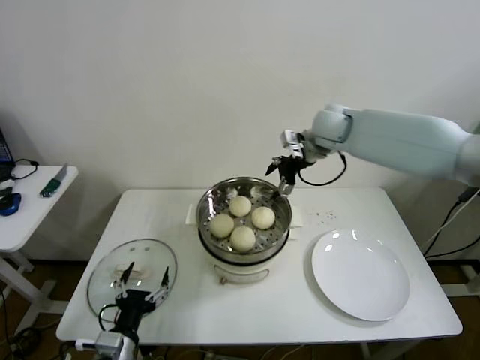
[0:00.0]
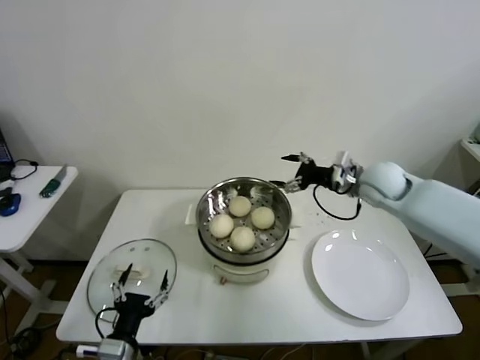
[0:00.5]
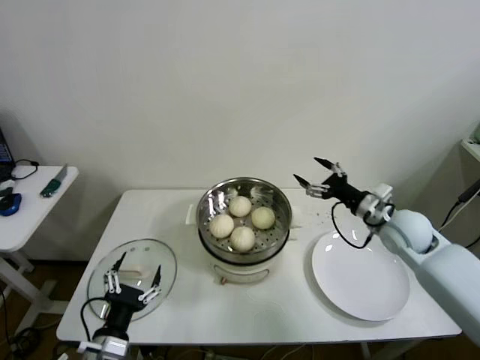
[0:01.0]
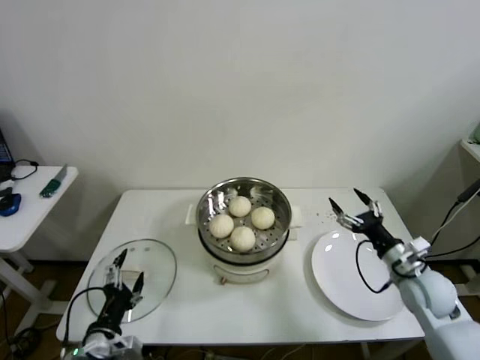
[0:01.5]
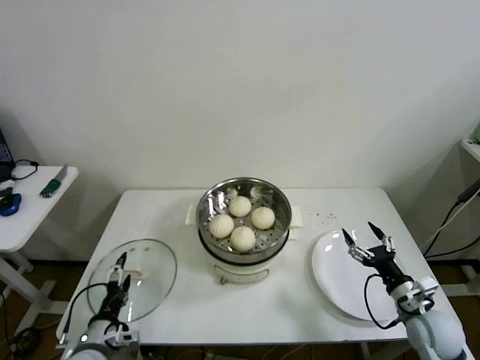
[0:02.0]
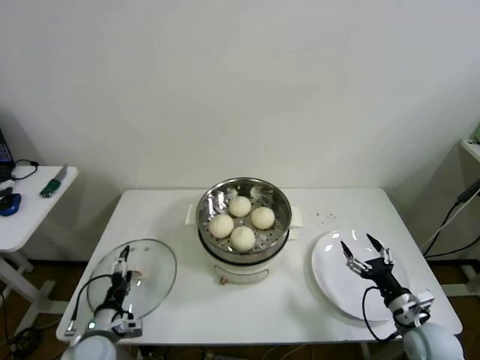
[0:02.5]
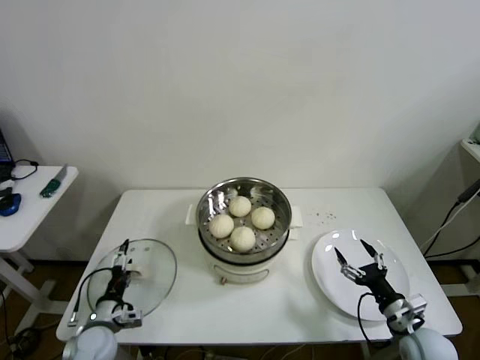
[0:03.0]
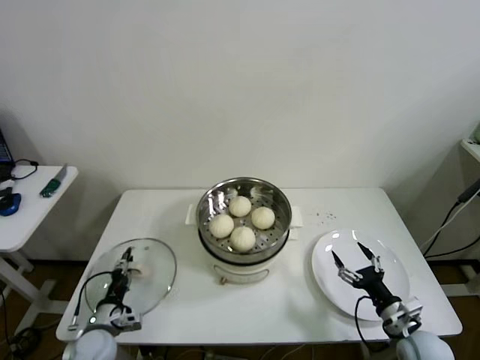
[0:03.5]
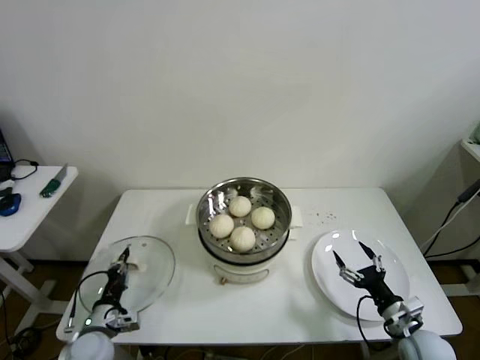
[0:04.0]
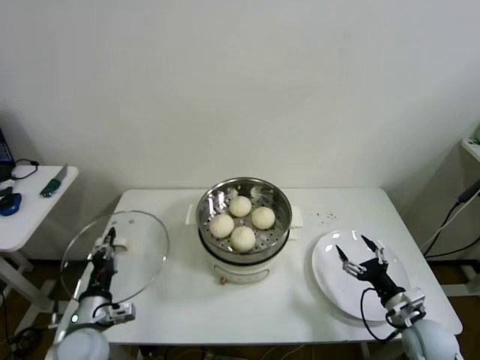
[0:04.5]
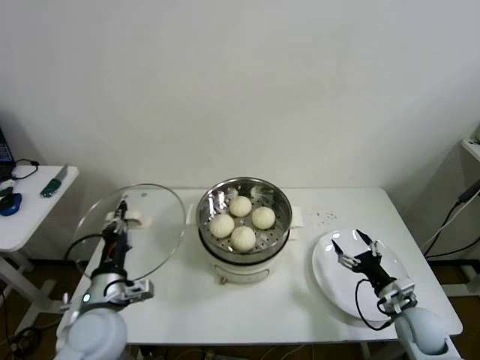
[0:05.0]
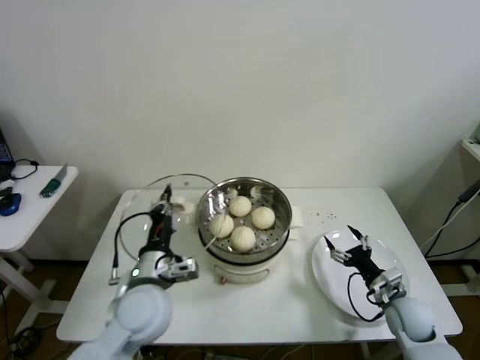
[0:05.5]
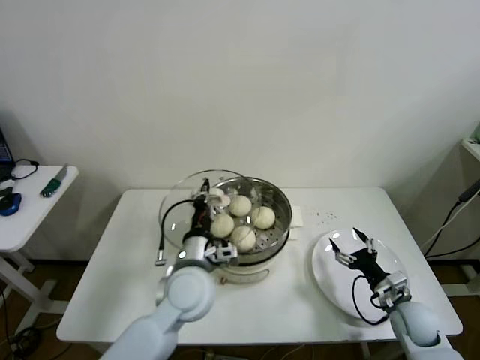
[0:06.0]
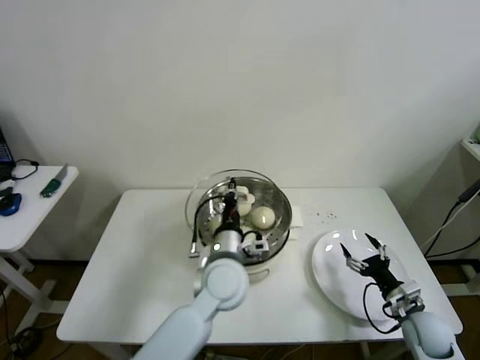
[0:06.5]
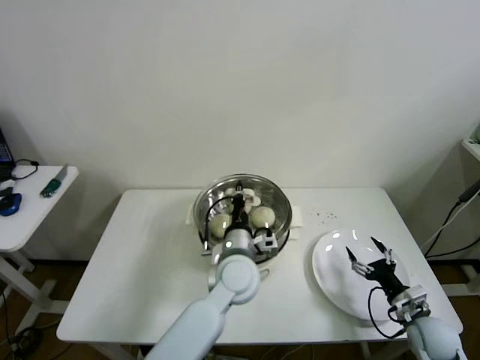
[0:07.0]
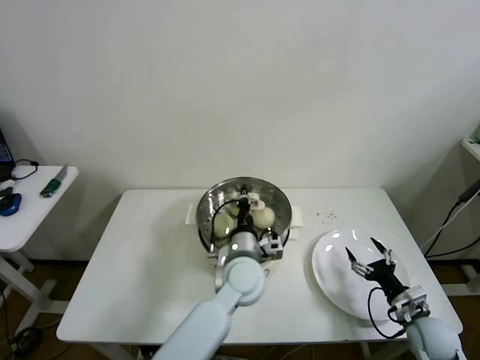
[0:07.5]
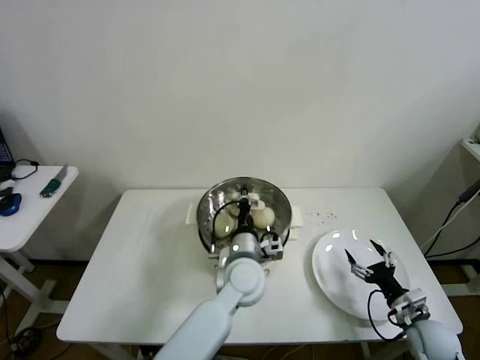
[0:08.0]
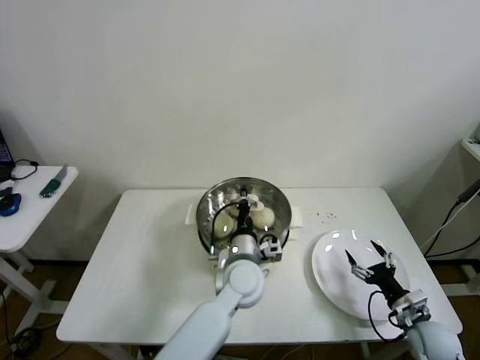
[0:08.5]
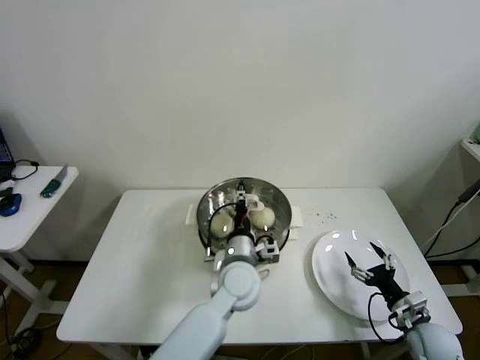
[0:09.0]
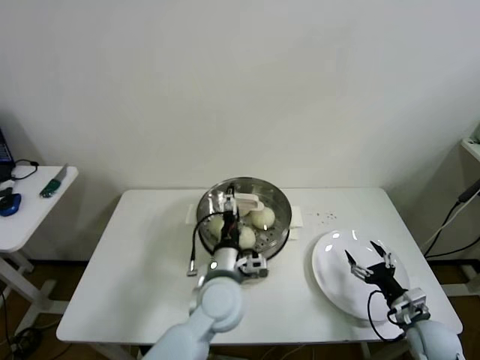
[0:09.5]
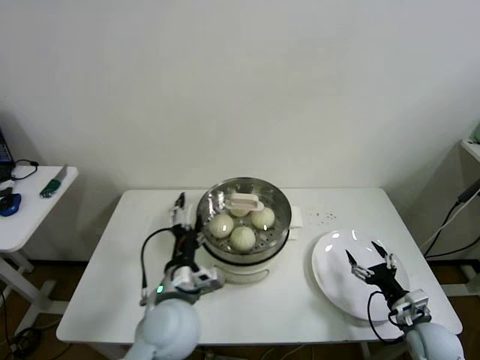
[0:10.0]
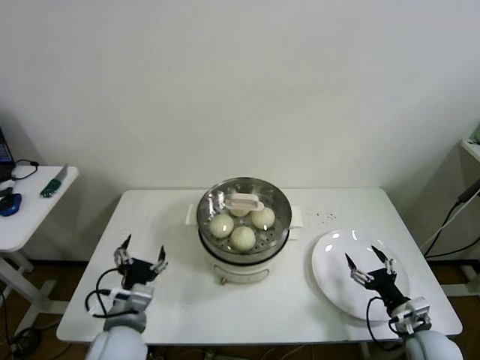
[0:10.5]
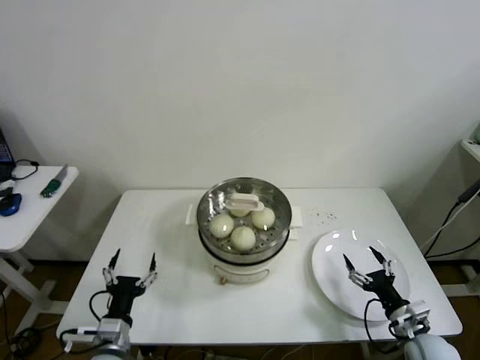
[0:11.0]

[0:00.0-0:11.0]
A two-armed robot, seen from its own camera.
Step, 0:00.0 to 0:03.5: Grasp the pot lid with left gripper.
Step, 0:04.0 to 0:08.5: Place the pot lid on the steamer with left gripper.
0:00.0 to 0:02.0: The left gripper is displaced to the left by approximately 5 cm. The right gripper heads backward, downward and to the right, covering about 50 cm.
0:02.0 to 0:03.5: The right gripper moves approximately 5 cm. The left gripper goes approximately 10 cm downward and forward, and closes up.
0:03.5 to 0:05.5: The left gripper is displaced upward and to the right by about 25 cm, and closes up. The right gripper moves forward, about 5 cm.
0:05.5 to 0:07.5: The right gripper shifts by about 5 cm; the left gripper heads to the right and forward, covering approximately 20 cm.
0:07.5 to 0:09.0: The left gripper opens.
0:09.0 to 0:11.0: The left gripper travels to the left and backward by approximately 30 cm, and opens.

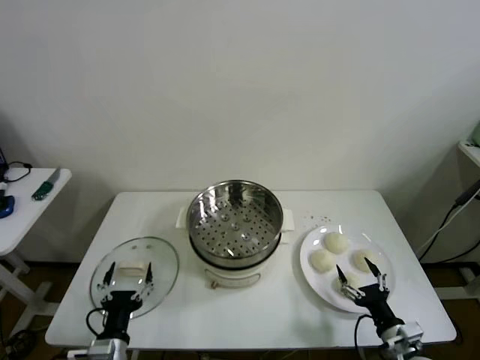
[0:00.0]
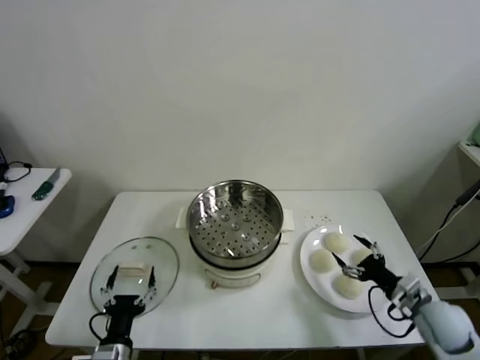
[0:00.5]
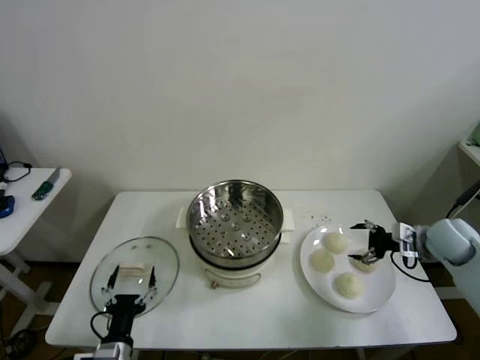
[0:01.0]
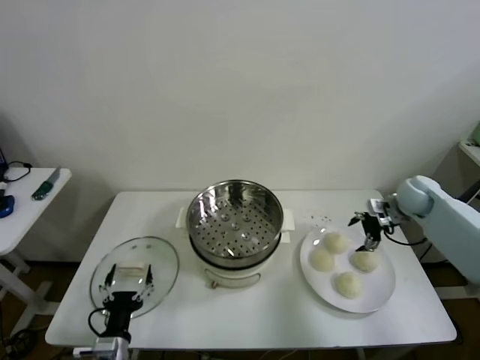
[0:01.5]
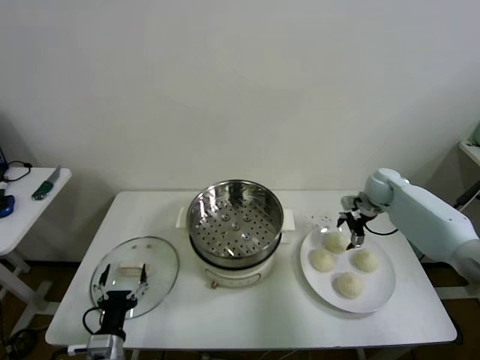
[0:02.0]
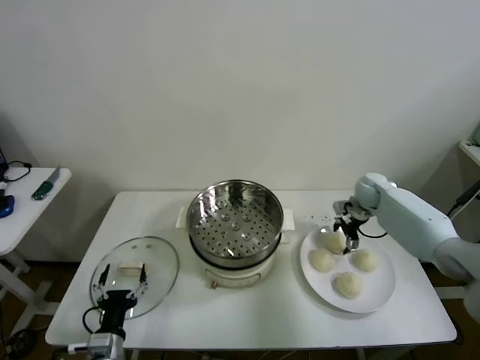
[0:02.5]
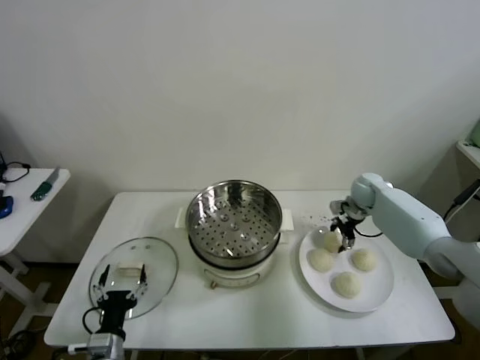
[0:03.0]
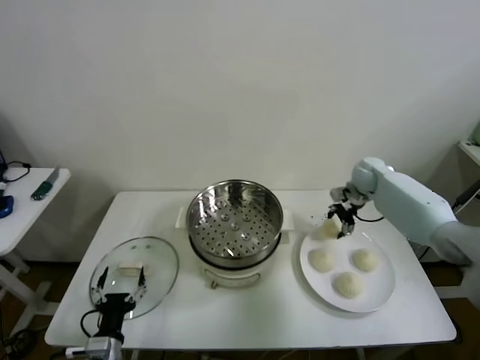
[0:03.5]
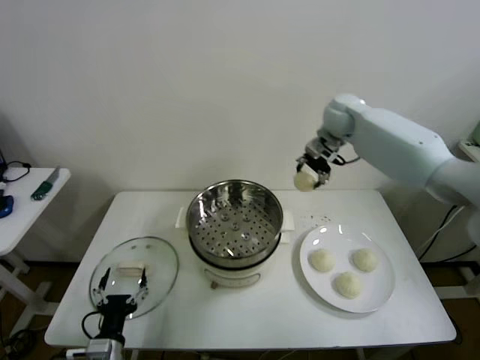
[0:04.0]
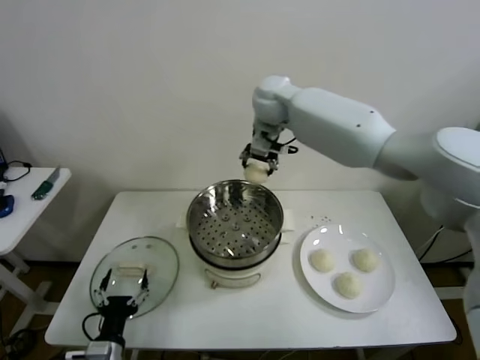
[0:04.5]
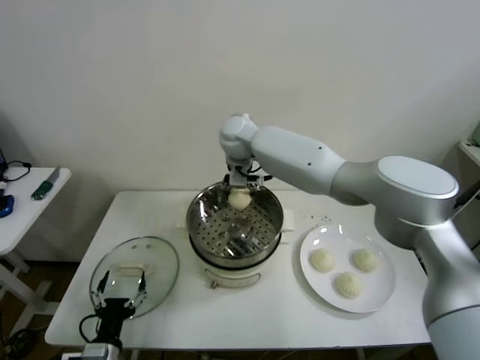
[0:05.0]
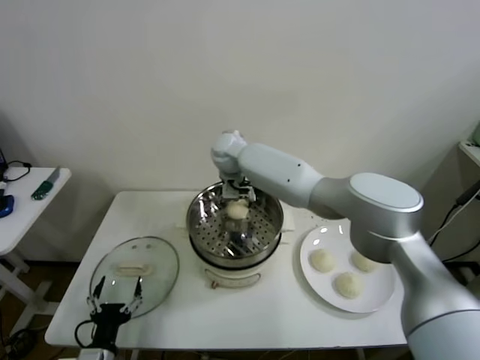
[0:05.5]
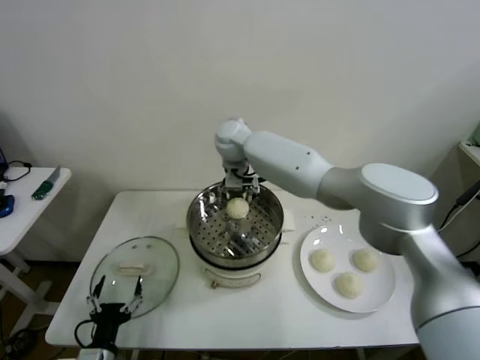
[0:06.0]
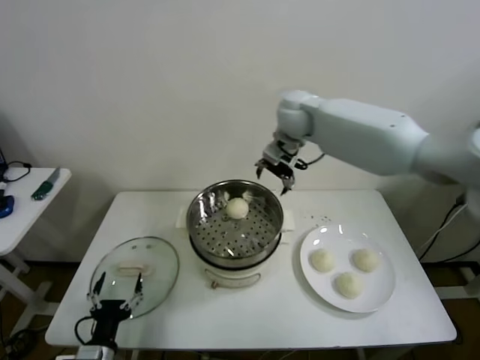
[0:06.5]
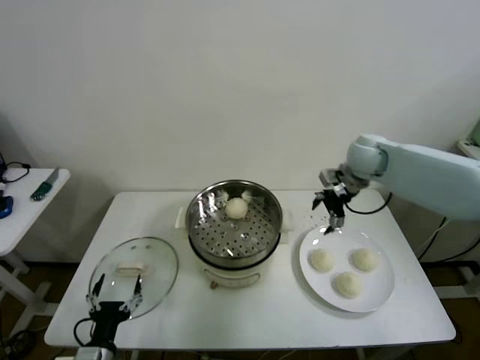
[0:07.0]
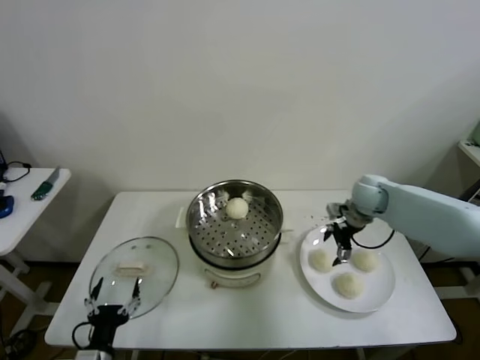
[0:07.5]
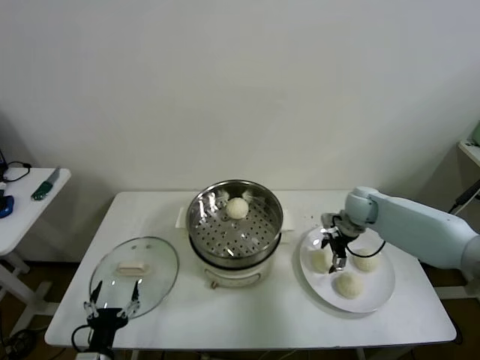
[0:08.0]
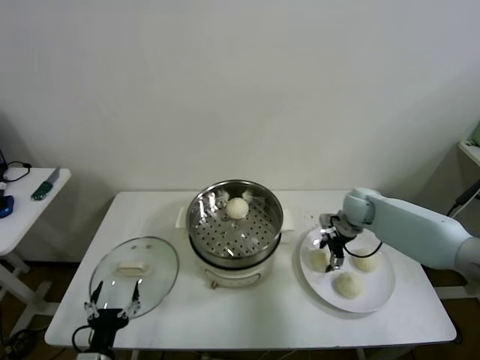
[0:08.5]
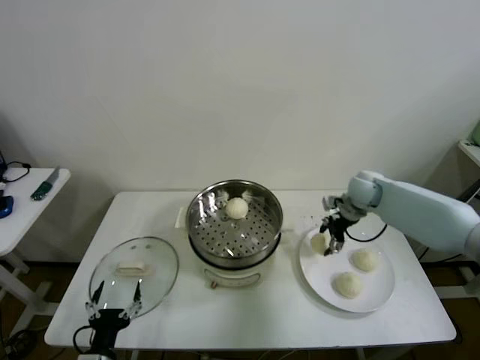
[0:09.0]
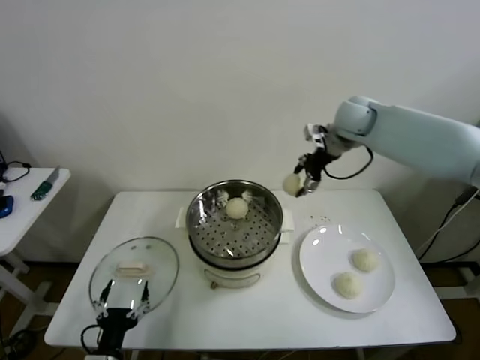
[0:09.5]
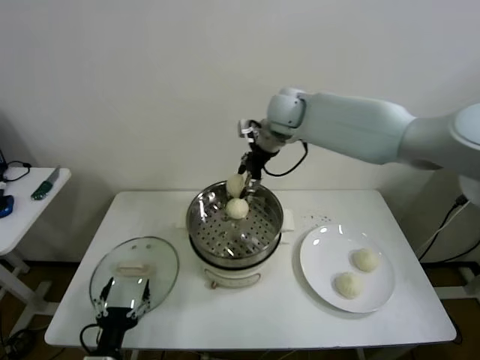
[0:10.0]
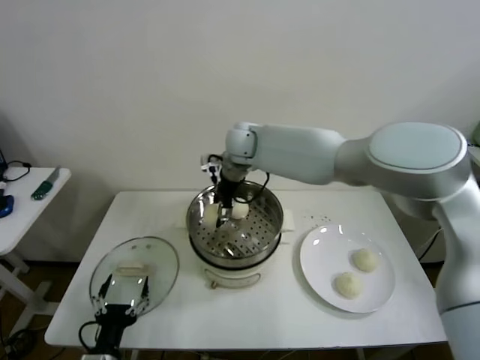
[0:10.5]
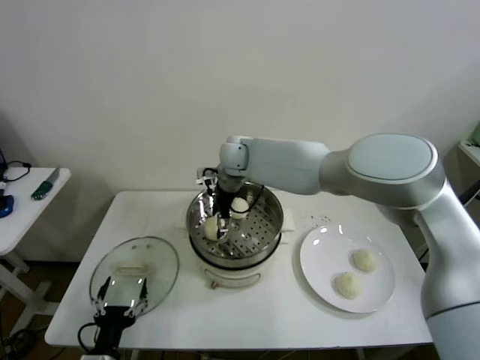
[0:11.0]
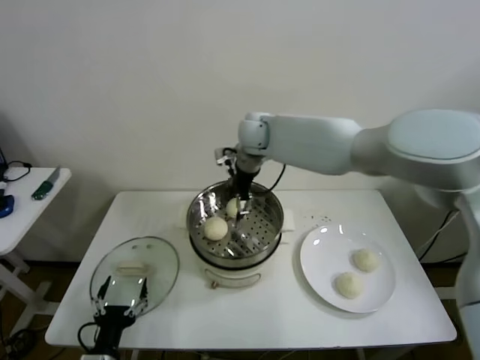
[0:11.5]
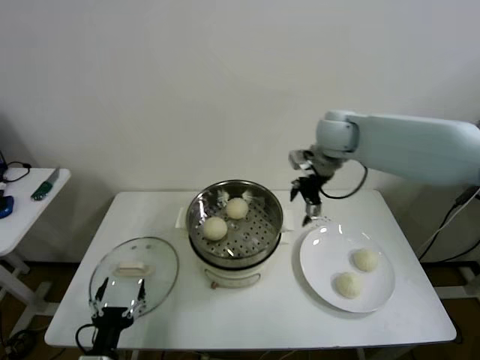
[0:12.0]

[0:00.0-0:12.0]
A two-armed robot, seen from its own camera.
Step, 0:00.0 to 0:02.5: Grasp the baozi in the plate with right gripper.
Step, 0:03.0 to 0:05.5: Place the baozi on the steamer with right gripper.
Step, 0:06.0 to 0:08.0: Grasp the baozi in the plate with right gripper.
Step, 0:08.5 to 0:10.5: Place the baozi on the steamer with right gripper.
0:02.0 to 0:04.0: The right gripper travels upward and to the left by roughly 25 cm, and closes its fingers.
0:04.0 to 0:06.0: The right gripper moves to the left, approximately 25 cm, and opens.
0:06.0 to 0:08.0: The right gripper heads to the right and downward, covering about 40 cm.
0:08.0 to 0:10.0: The right gripper is displaced upward and to the left by about 35 cm, and closes its fingers.
0:10.0 to 0:12.0: The right gripper shifts approximately 10 cm to the right, and opens up.

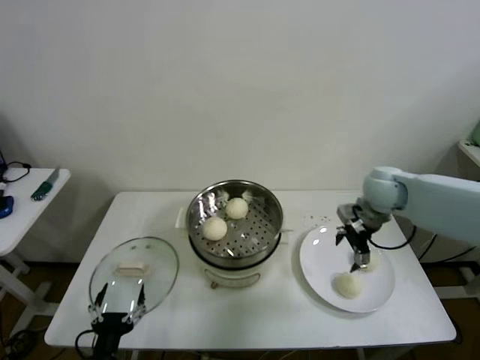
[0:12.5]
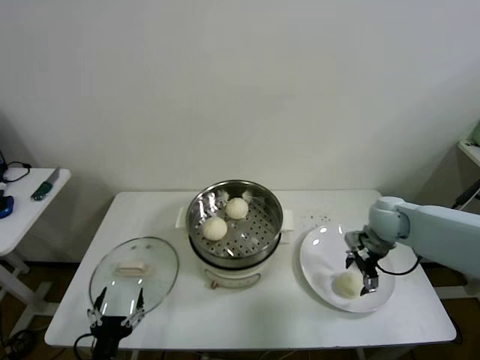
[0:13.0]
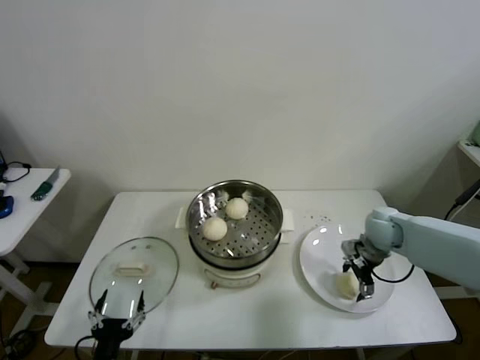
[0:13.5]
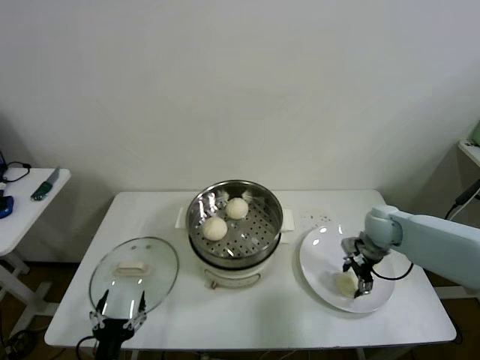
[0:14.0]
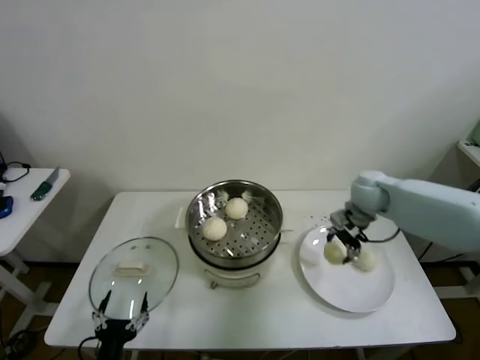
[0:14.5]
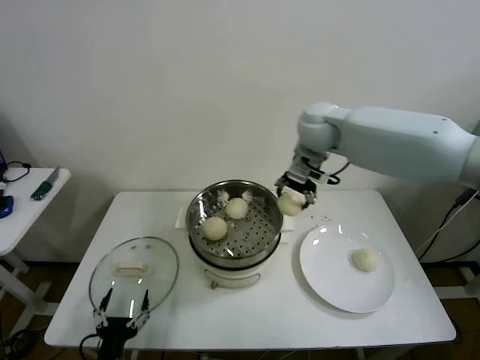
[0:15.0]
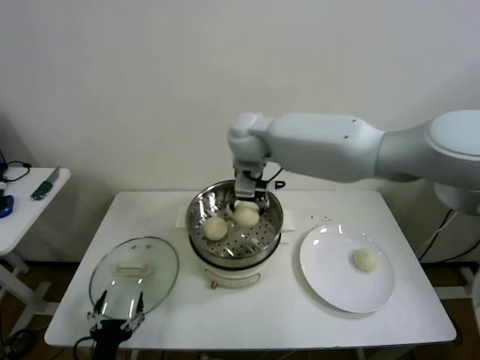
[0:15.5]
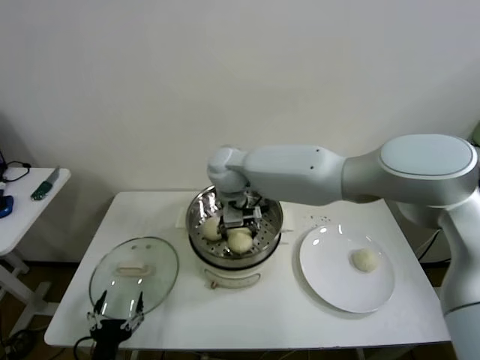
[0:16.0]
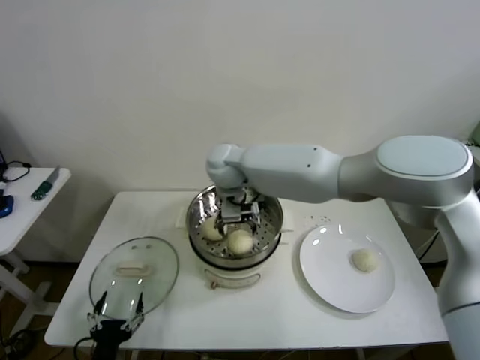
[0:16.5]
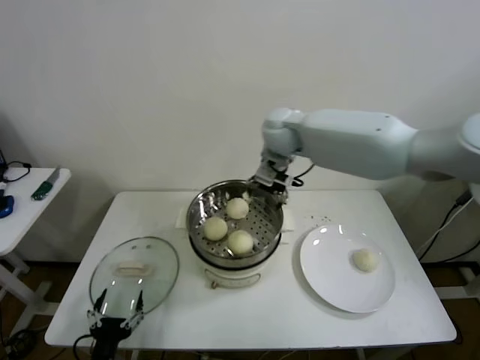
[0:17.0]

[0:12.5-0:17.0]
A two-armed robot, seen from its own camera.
Step, 0:14.0 to 0:16.0: Place the baozi on the steamer with right gripper.
0:12.5 to 0:14.5: The right gripper closes.
0:14.5 to 0:17.0: The right gripper heads to the left and upward, covering approximately 25 cm, and opens its fingers.
